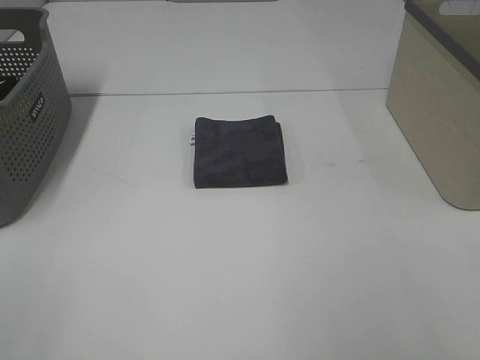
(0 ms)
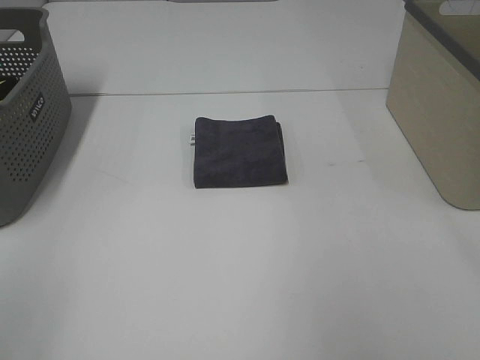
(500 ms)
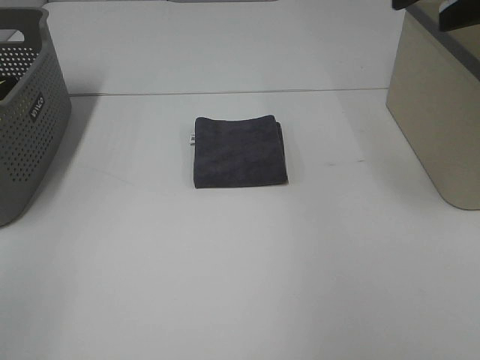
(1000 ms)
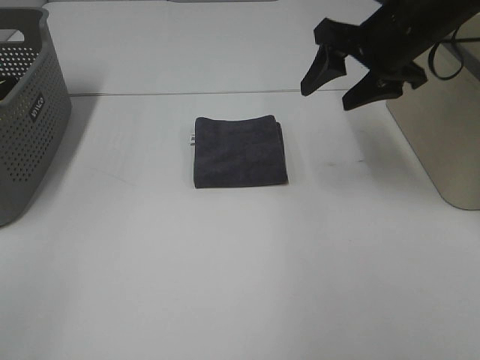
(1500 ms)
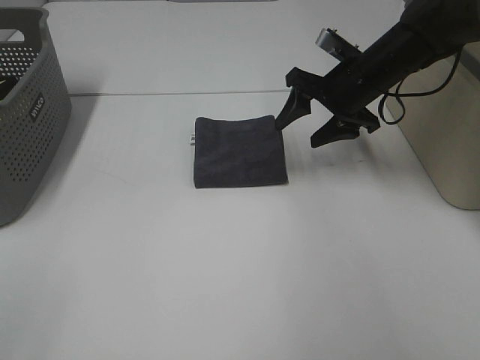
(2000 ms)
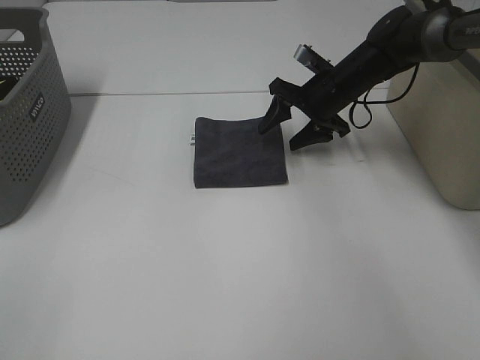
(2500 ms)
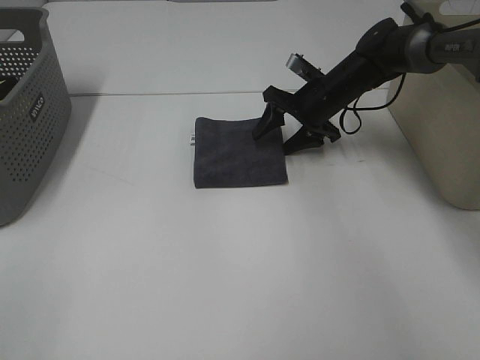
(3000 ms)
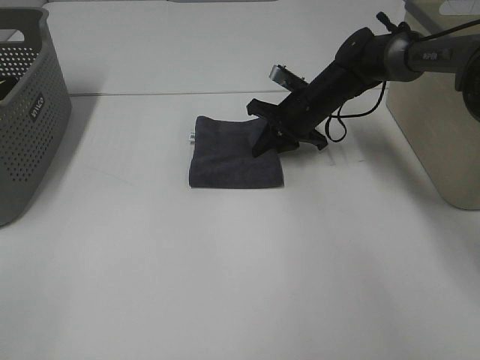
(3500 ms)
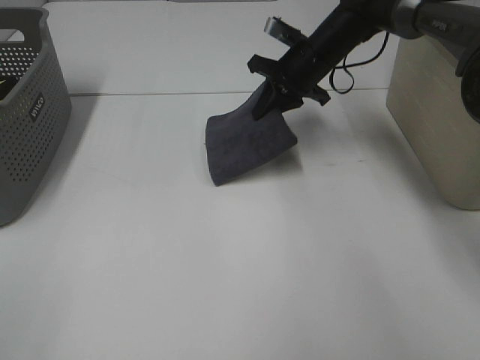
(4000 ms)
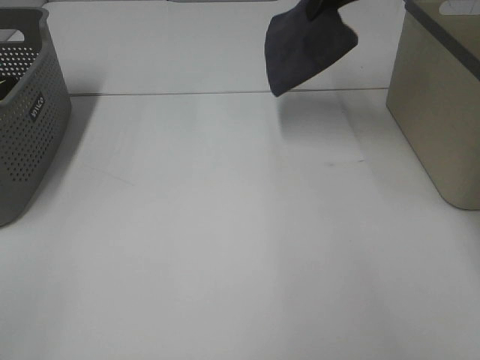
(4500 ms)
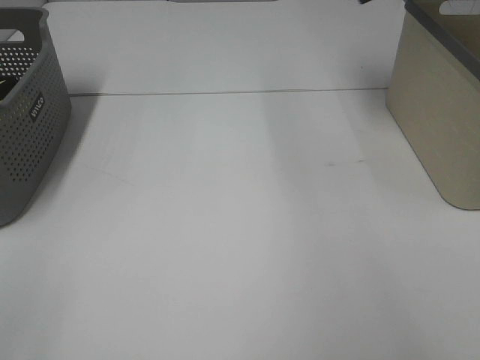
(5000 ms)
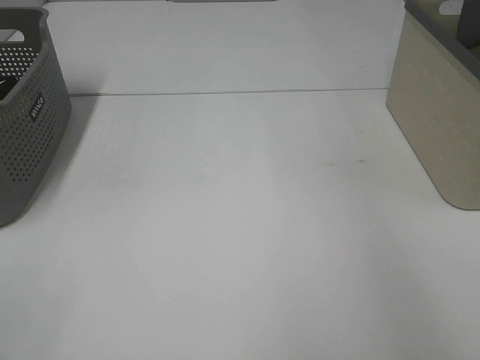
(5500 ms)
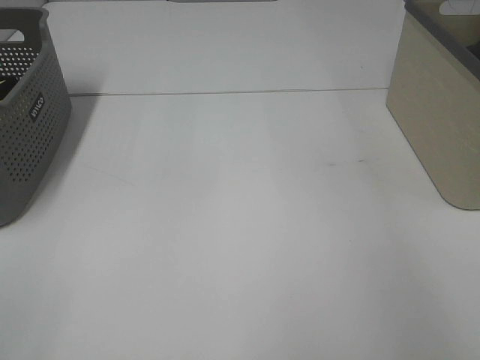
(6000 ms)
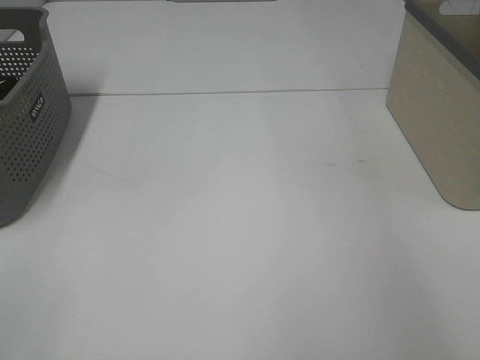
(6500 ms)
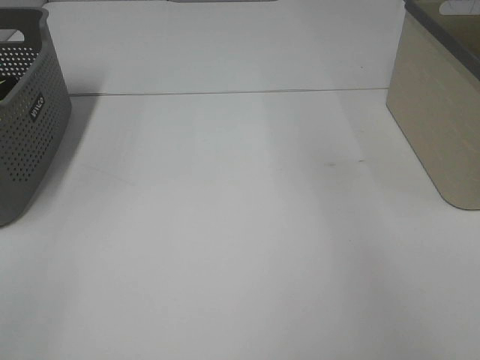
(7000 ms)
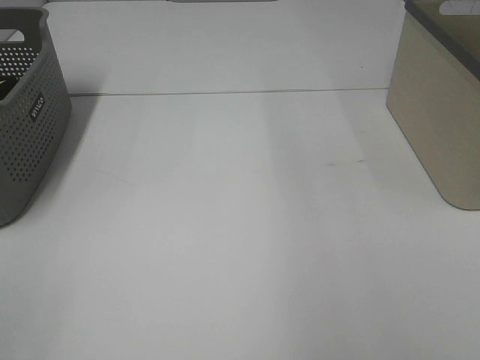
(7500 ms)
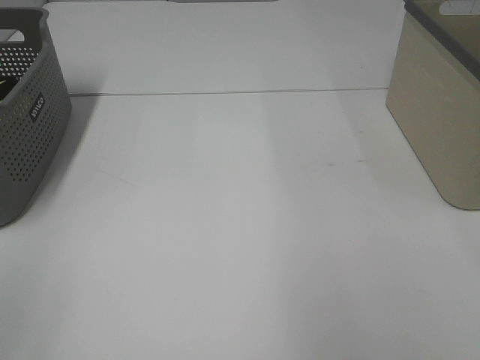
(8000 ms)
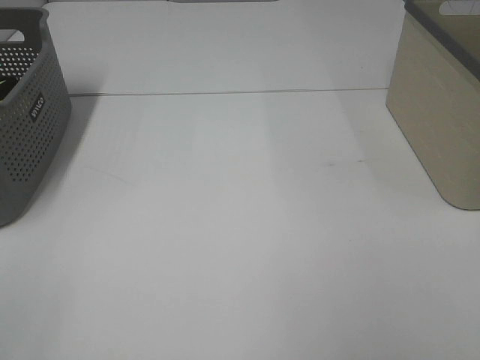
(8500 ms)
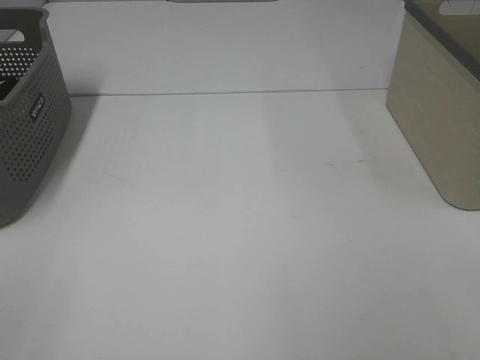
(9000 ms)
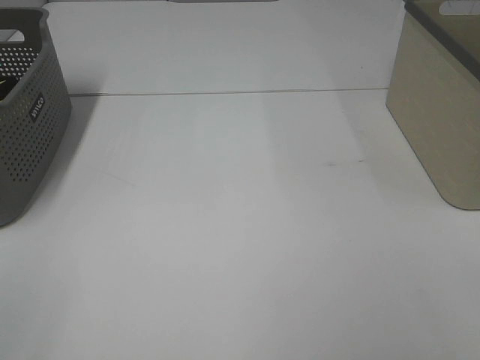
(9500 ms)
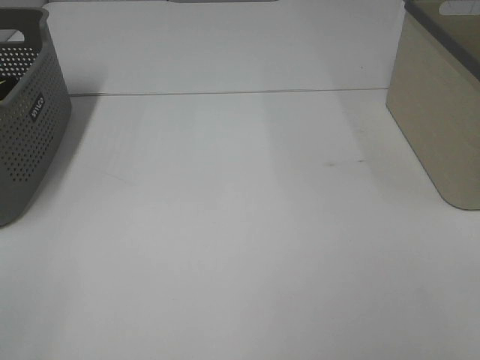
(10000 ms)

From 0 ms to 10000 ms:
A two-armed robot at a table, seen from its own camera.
Step, from 0 ms to 3500 ms: Right hand: grab the folded grey towel.
Step, from 4000 ms to 6000 ms: Right hand: place the grey towel in right basket.
From 0 ms to 2000 ms: The right gripper goes some 40 cm forward and downward.
From 2000 ms to 4000 ms: The right gripper shifts approximately 10 cm forward and to the left, travels downward and back again, some 5 cm each way, and closes.
From 4000 ms to 6000 ms: The right gripper heads to the right and upward, covering some 30 cm, and opens its fingers.

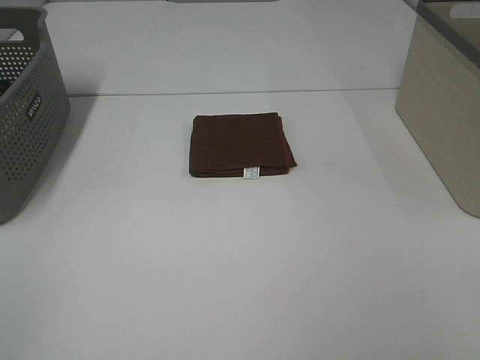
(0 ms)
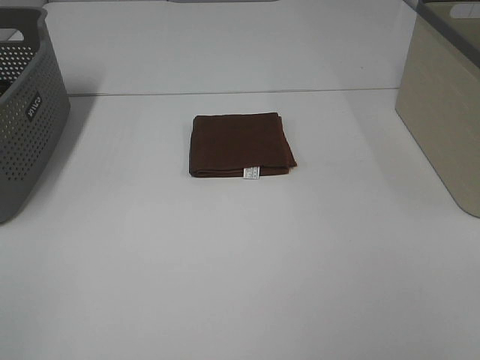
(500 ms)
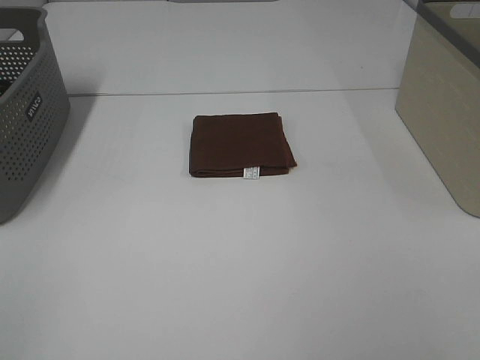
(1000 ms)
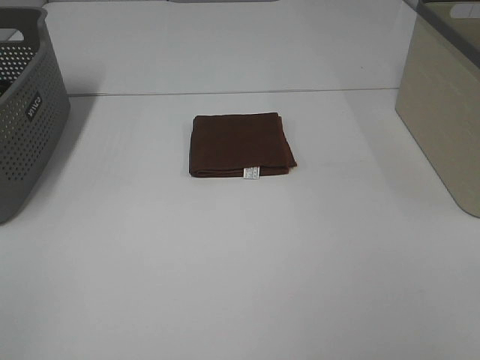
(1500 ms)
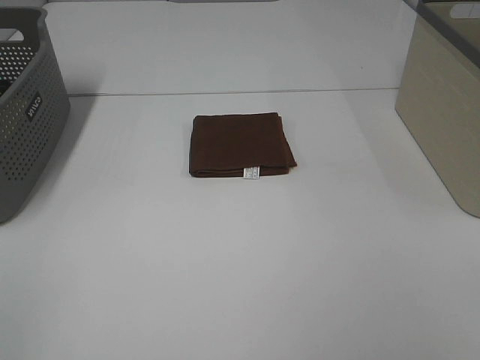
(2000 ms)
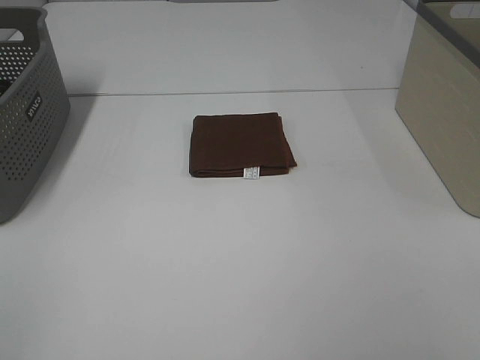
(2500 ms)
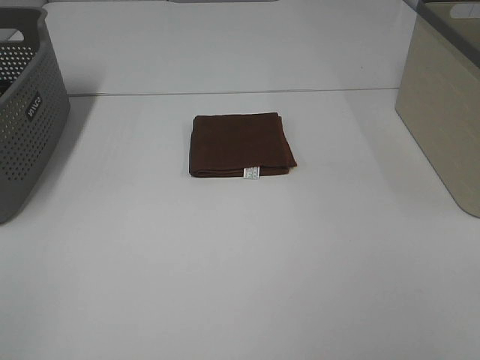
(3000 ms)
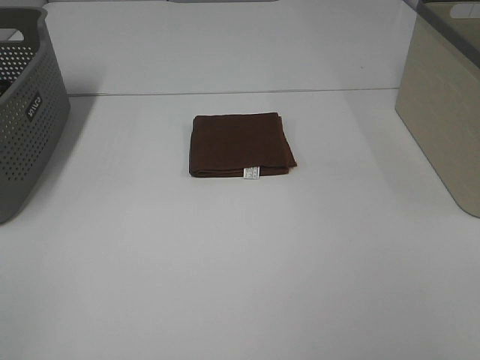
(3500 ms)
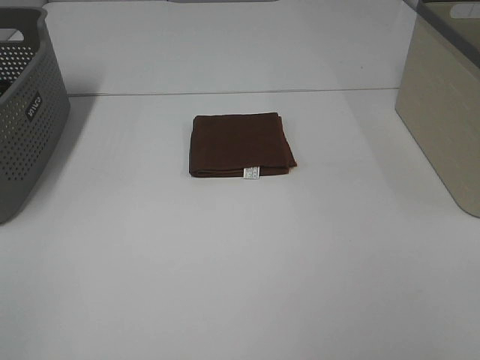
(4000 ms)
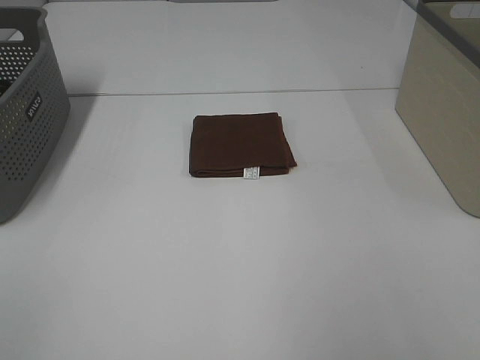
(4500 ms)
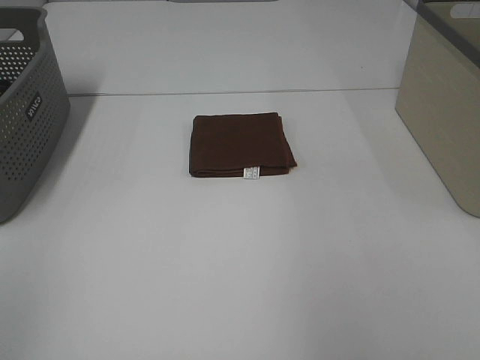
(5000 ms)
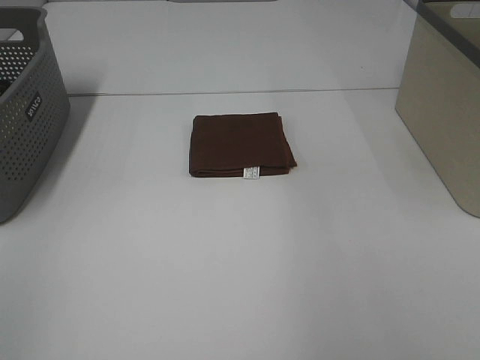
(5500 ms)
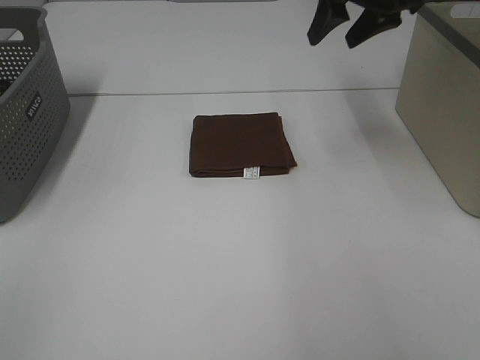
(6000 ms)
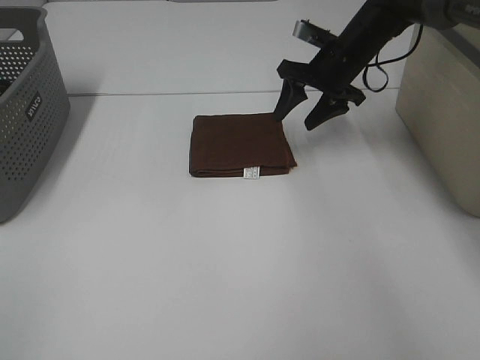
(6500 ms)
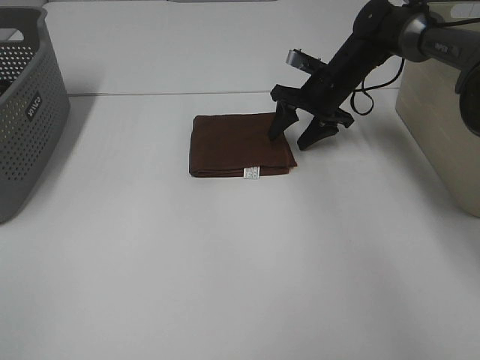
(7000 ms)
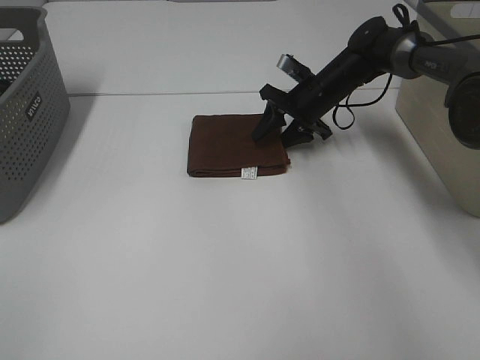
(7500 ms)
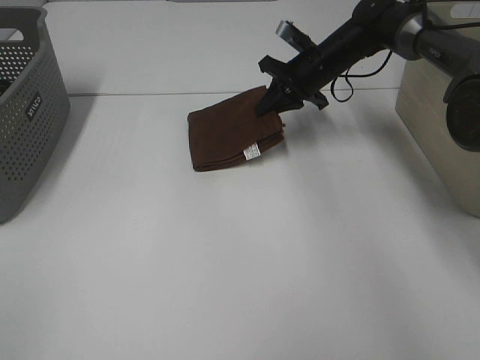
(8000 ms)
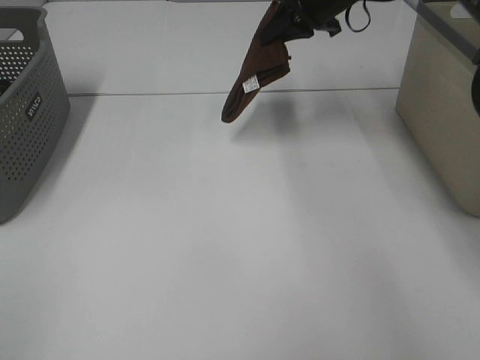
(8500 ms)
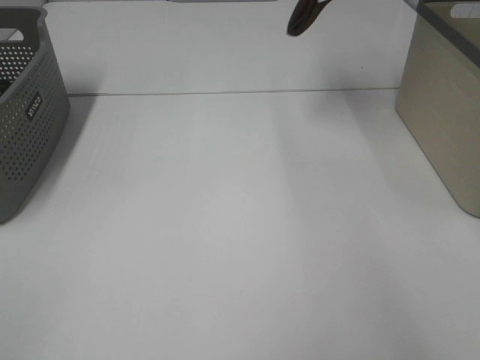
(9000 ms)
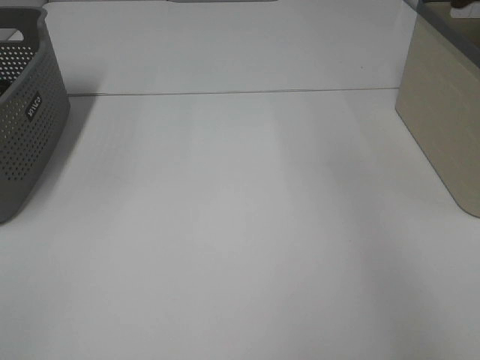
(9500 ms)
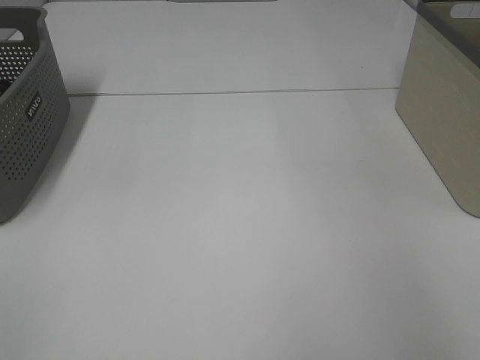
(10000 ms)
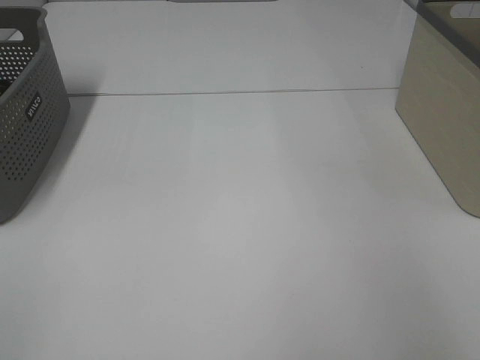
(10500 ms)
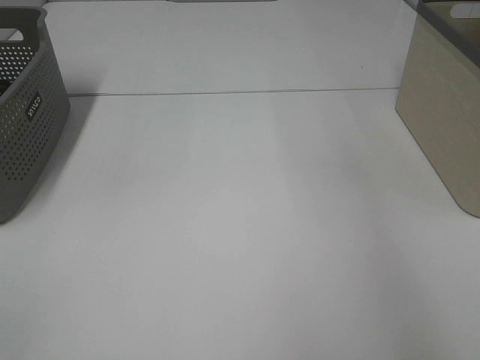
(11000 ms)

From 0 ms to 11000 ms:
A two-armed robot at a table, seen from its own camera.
Step, from 0 ms to 7500 ms: Right hand: grab the folded brown towel.
Step, from 8000 ms to 10500 ms: Right hand: place the brown towel in right basket.
From 0 ms to 3500 ms: The two grippers keep their place.
From 5500 ms to 7500 ms: The right gripper shifts roughly 35 cm downward, forward and to the left.
From 7500 ms to 9000 ms: The right gripper shifts about 30 cm upward, and closes its fingers.
From 9000 ms to 11000 ms: The right gripper goes roughly 15 cm to the right, and opens its fingers.

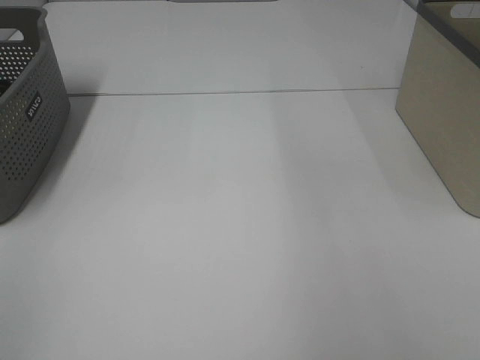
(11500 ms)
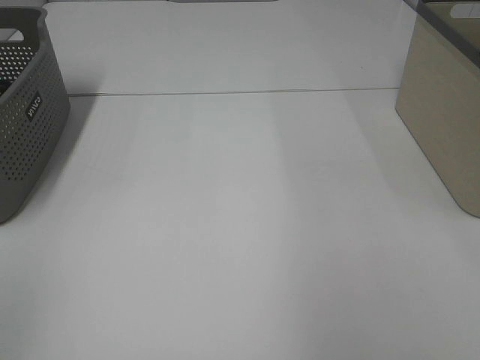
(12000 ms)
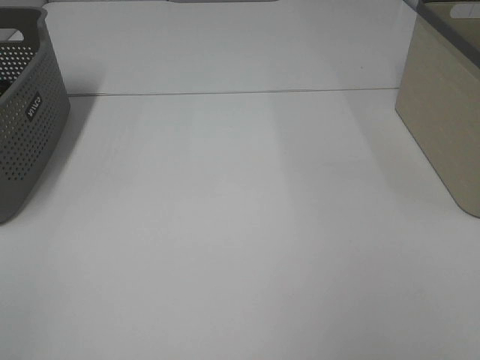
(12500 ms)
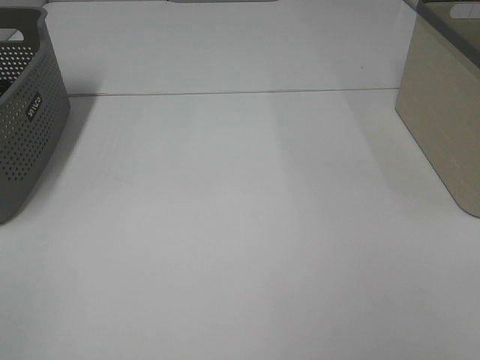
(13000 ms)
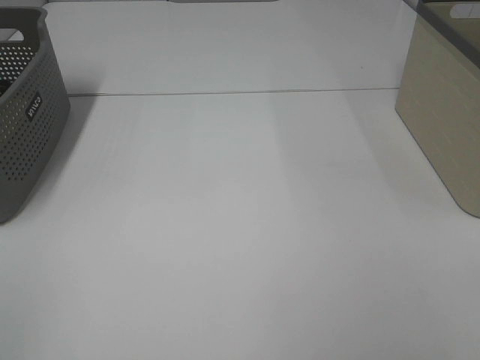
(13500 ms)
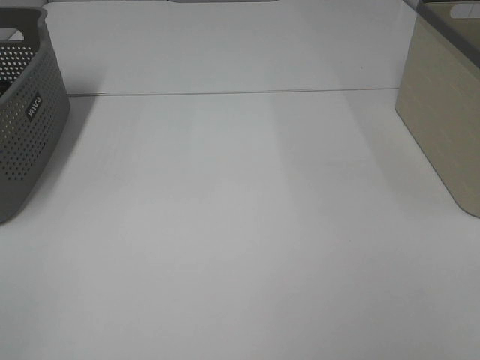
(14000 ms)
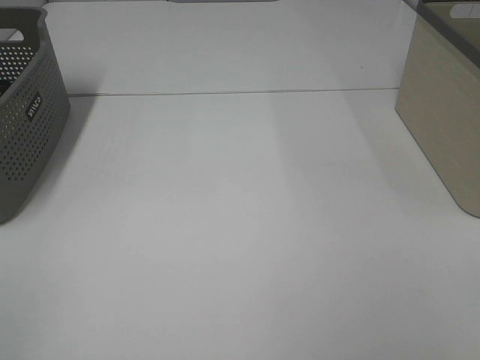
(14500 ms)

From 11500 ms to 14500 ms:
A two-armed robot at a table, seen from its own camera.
From 13000 ms to 14500 ms: The two grippers keep their place.

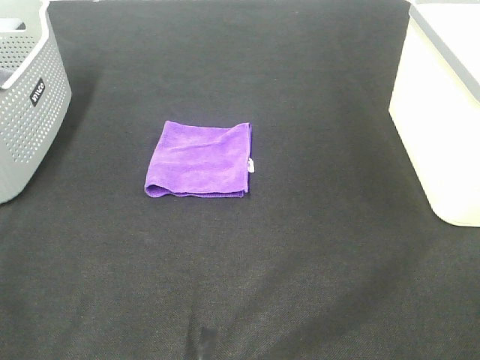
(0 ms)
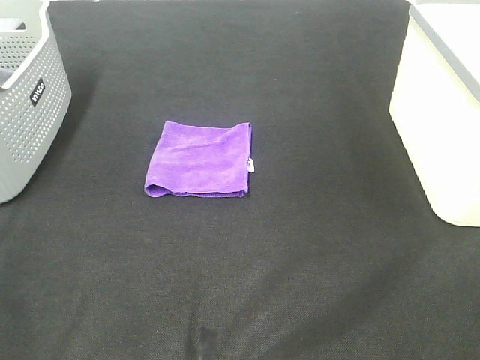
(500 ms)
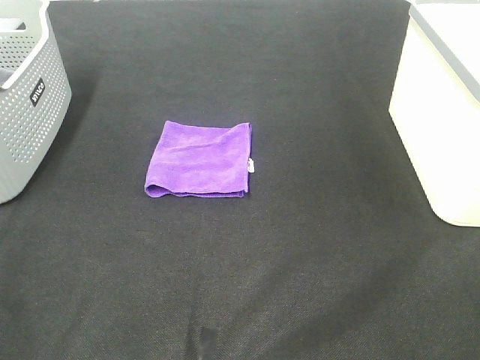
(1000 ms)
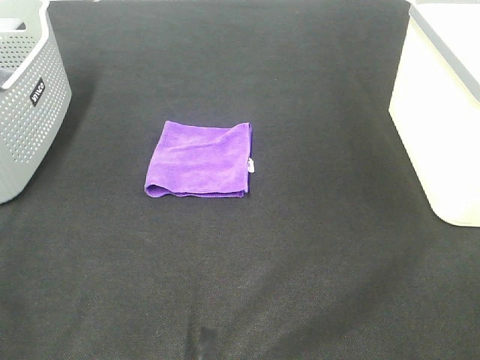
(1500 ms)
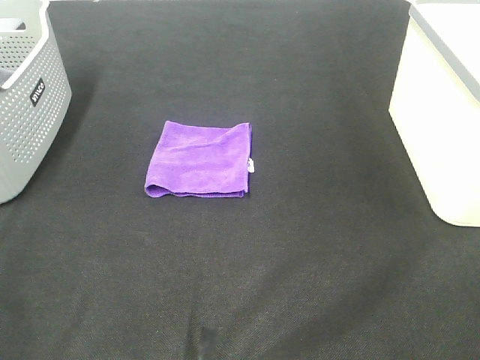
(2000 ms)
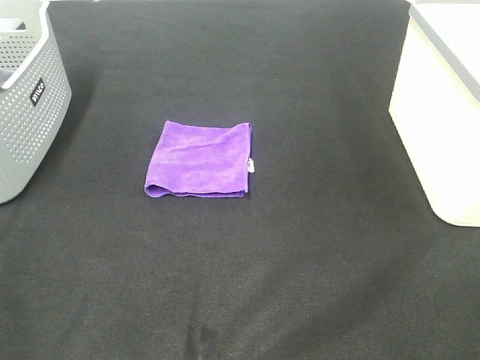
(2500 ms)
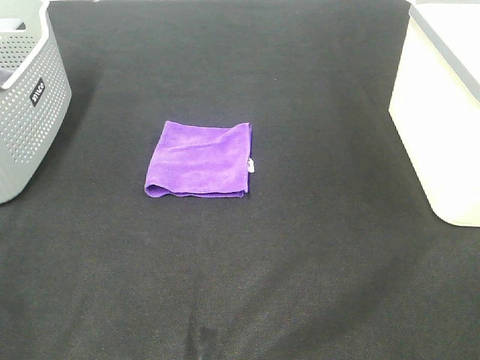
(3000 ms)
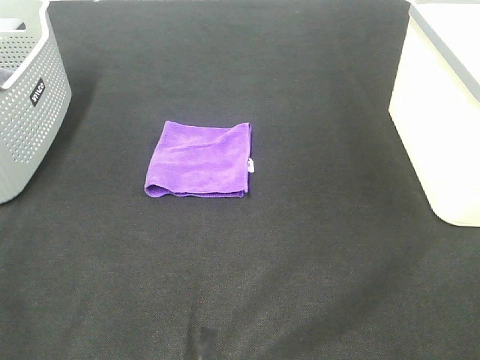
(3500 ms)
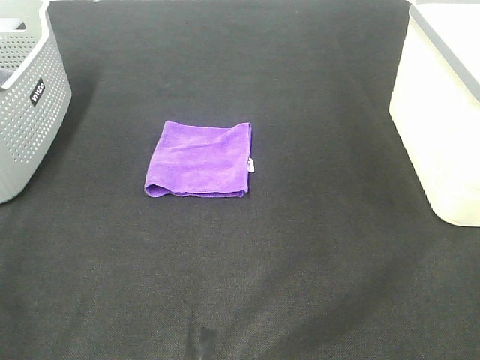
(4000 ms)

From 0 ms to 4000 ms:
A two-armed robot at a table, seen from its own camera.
From 0 ms to 2000 ms: Both grippers stay about where they are.
